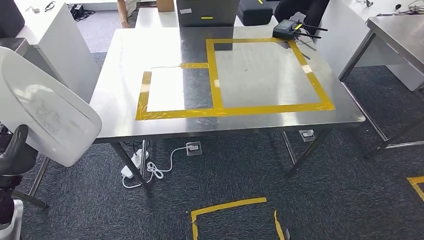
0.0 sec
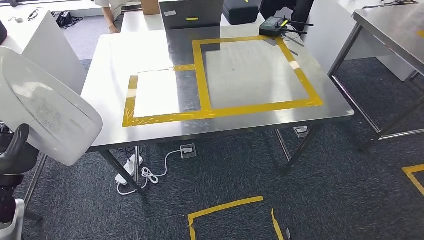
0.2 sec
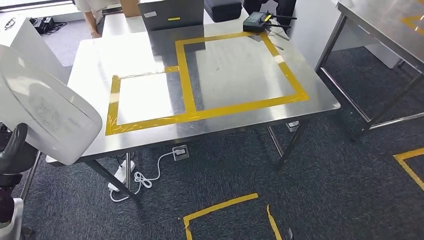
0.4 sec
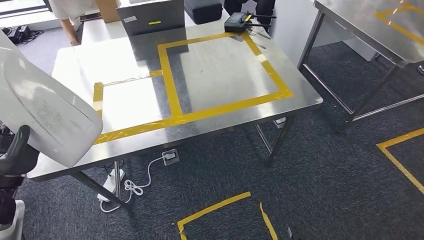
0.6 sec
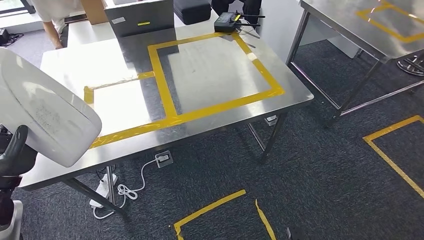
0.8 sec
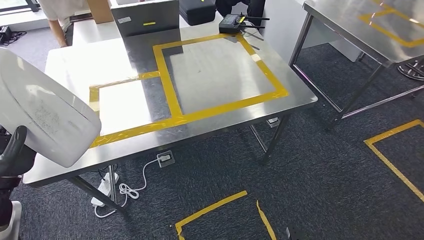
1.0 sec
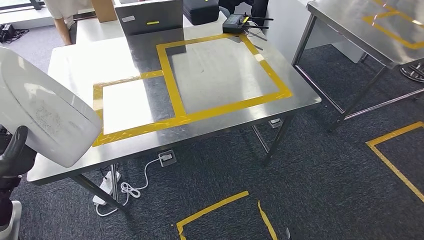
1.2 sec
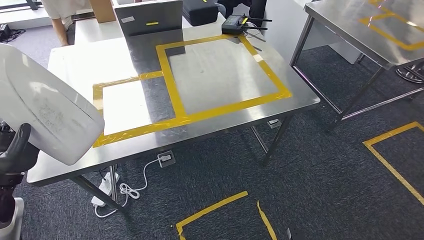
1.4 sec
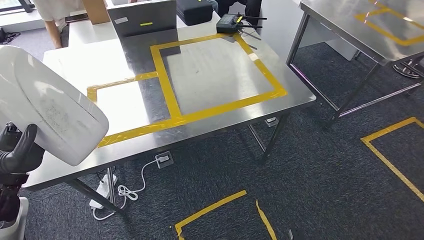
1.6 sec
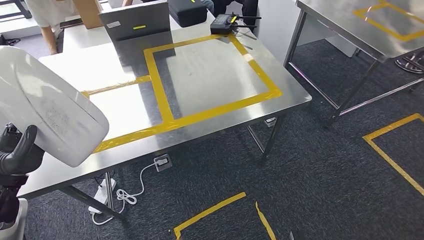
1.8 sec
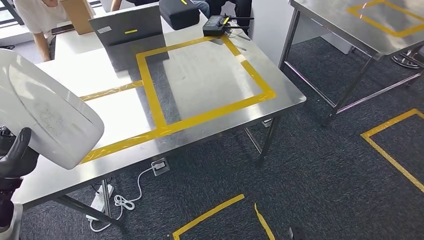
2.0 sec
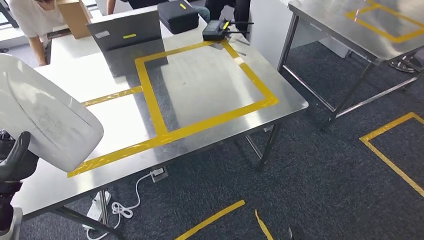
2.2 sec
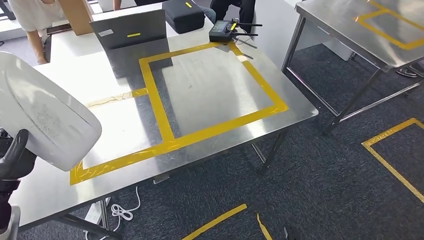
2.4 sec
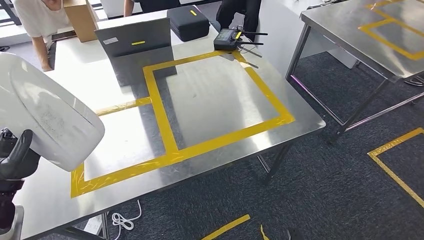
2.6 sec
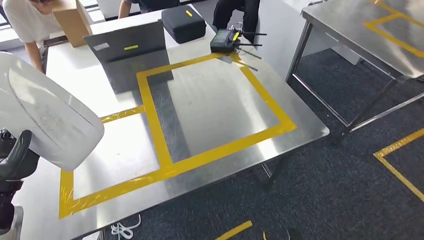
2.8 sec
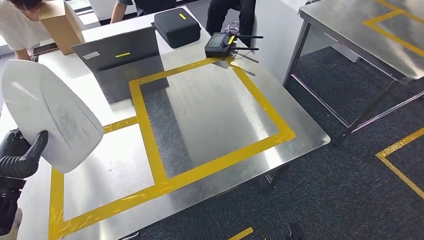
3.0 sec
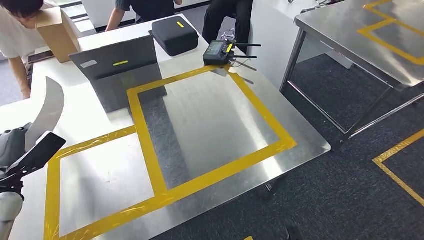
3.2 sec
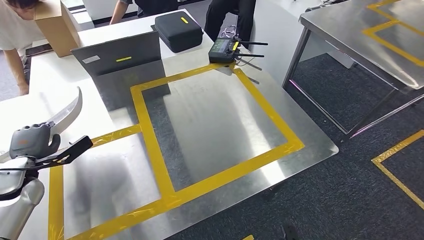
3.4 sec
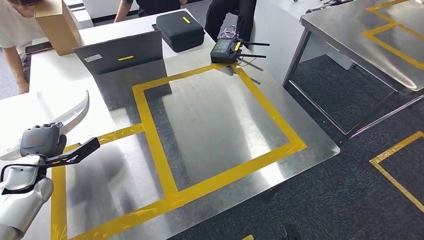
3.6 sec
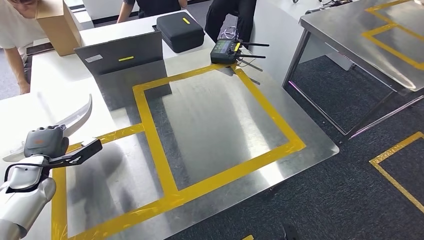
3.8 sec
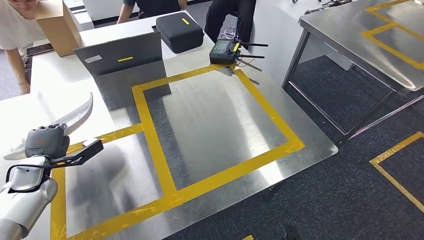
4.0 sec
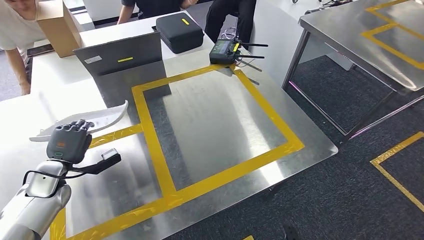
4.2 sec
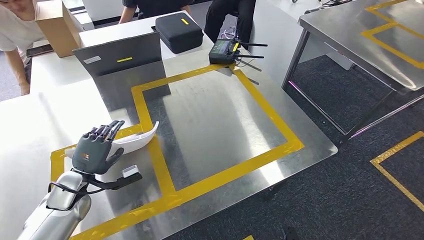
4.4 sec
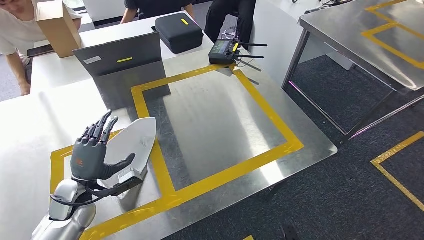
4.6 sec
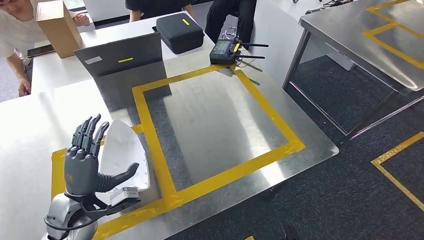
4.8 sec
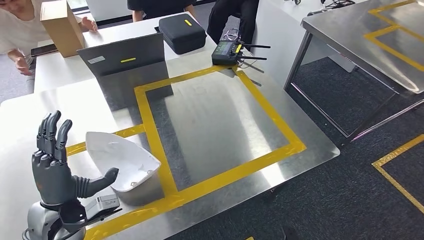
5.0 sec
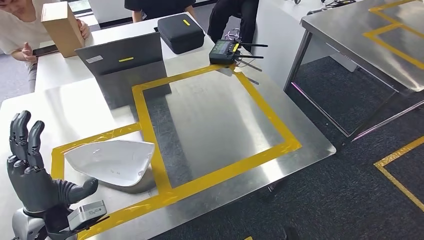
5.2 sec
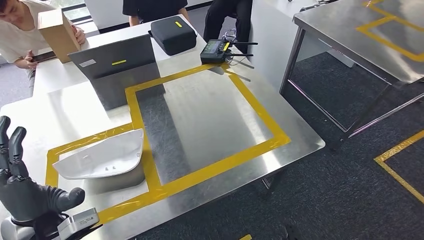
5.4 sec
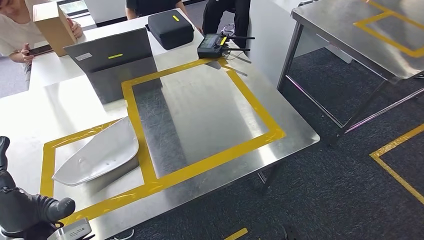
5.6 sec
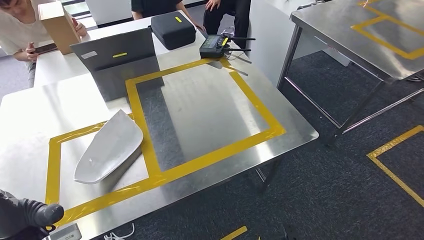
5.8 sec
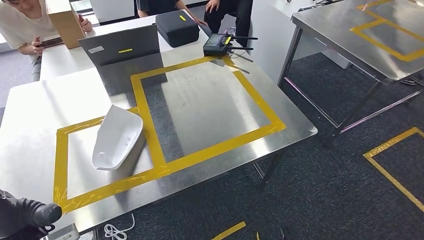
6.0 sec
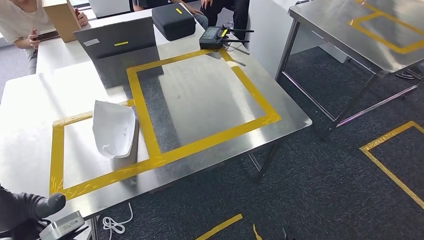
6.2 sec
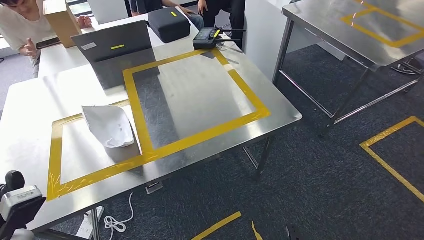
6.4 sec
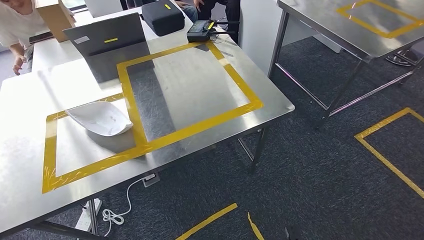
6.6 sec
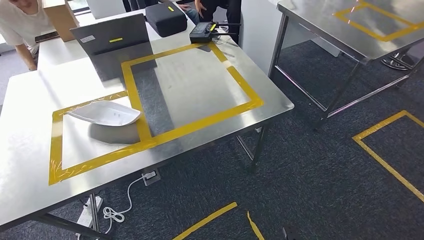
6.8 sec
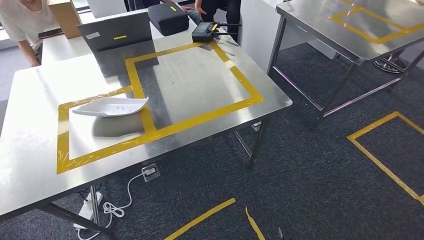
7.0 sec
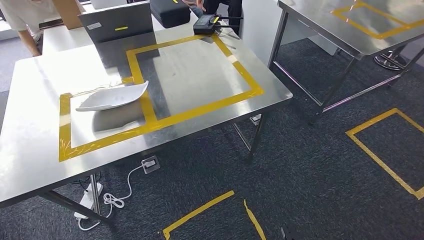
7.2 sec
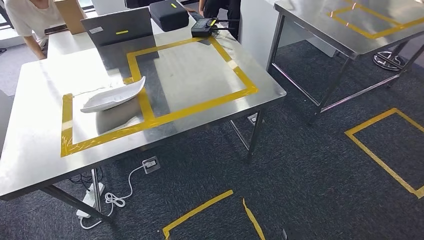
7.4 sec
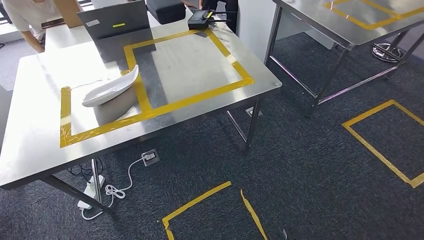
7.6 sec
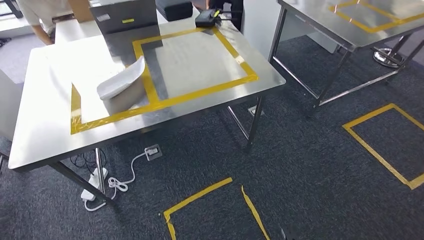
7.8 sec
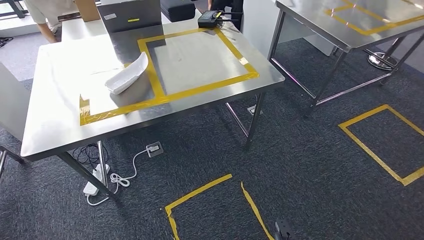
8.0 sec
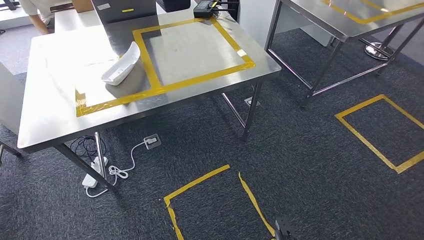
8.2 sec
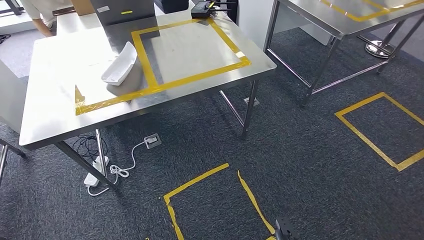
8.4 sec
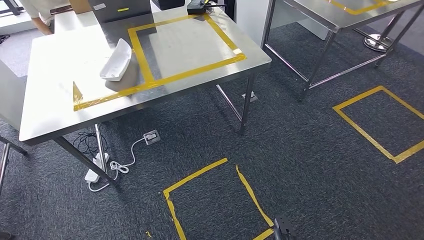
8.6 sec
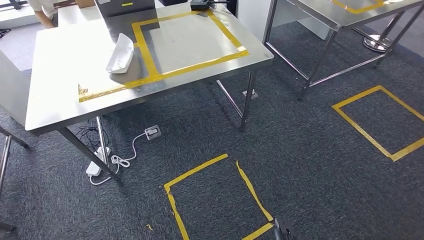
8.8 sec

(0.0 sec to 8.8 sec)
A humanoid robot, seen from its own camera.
Step, 0.0 sec - 5.8 sec: Insert the small component into the corresponding slot on the workbench.
Step, 6.4 sec - 8.8 sec: Return to the initial position at the workbench.

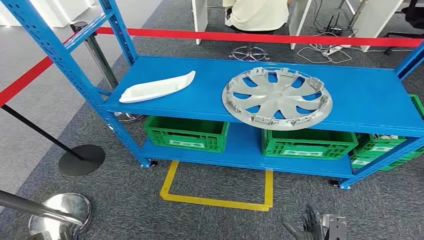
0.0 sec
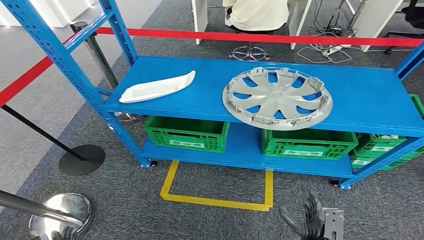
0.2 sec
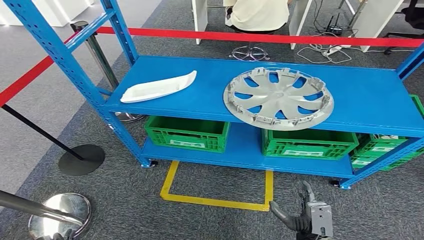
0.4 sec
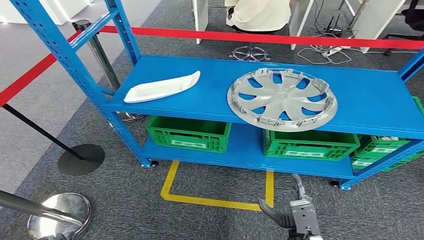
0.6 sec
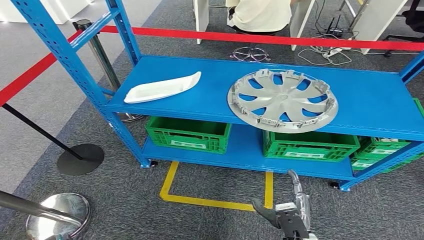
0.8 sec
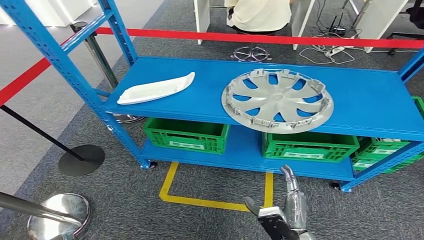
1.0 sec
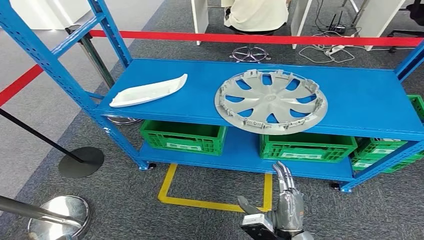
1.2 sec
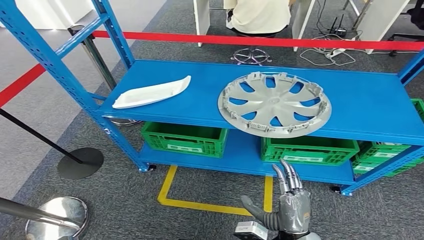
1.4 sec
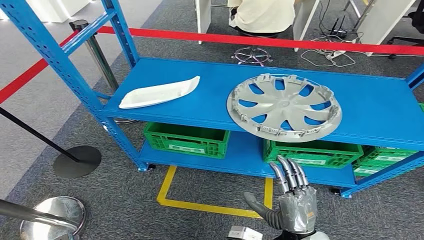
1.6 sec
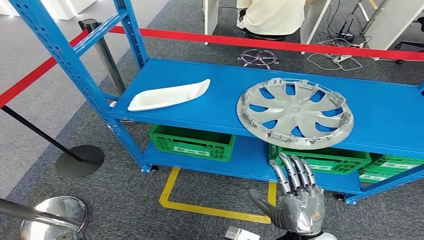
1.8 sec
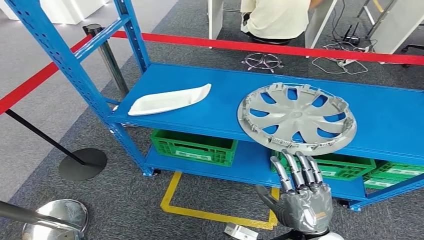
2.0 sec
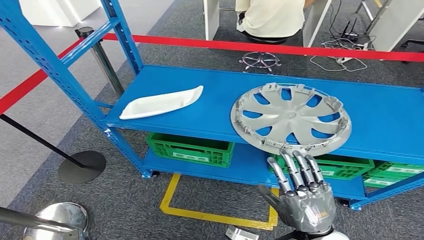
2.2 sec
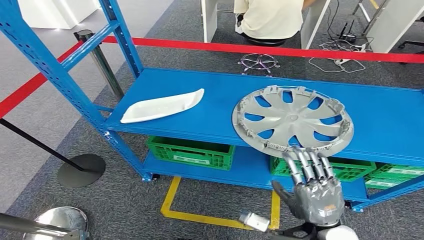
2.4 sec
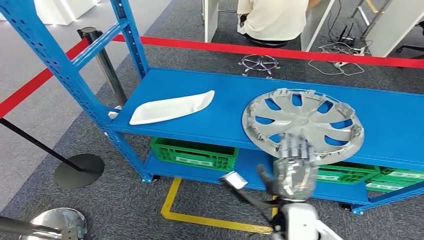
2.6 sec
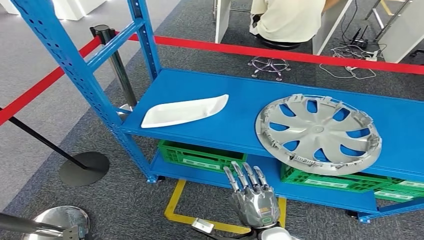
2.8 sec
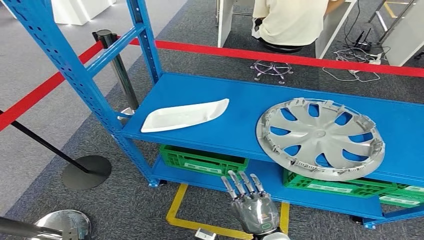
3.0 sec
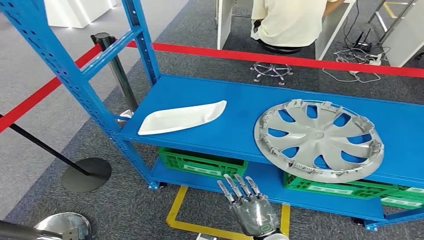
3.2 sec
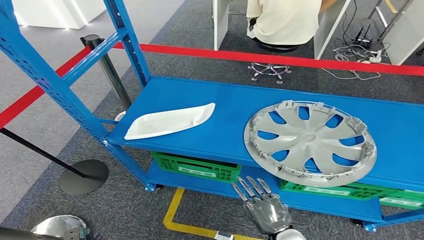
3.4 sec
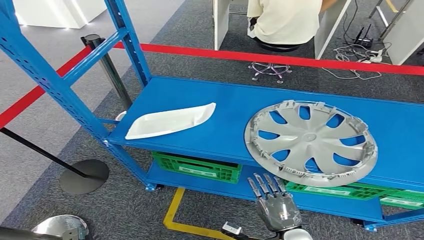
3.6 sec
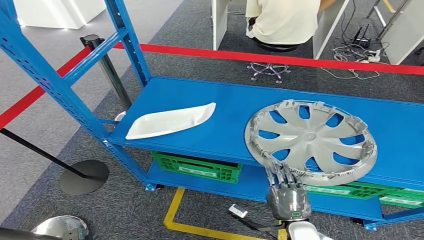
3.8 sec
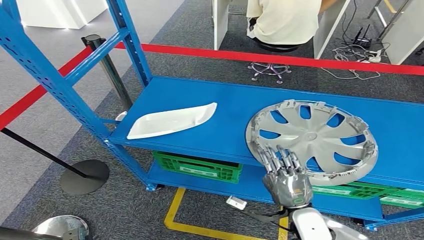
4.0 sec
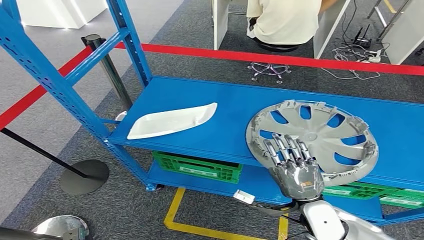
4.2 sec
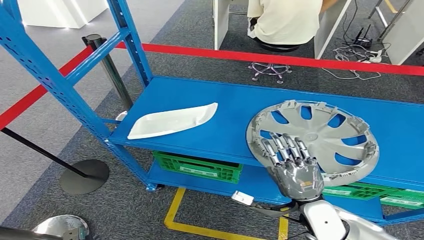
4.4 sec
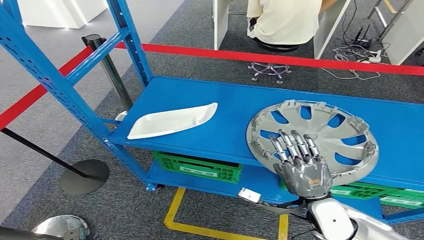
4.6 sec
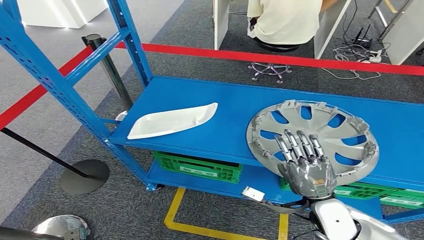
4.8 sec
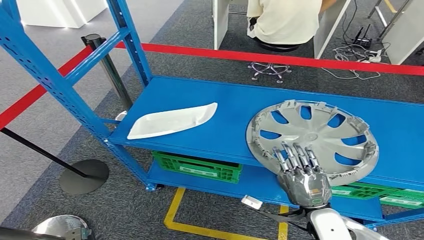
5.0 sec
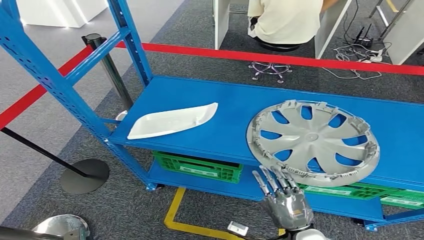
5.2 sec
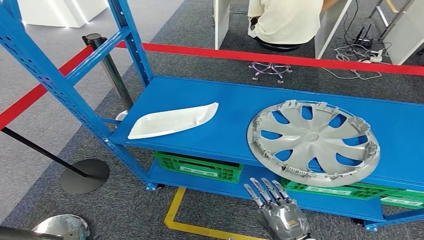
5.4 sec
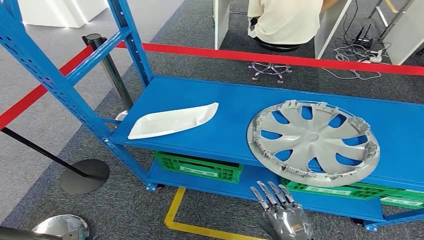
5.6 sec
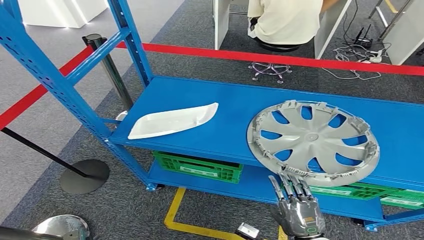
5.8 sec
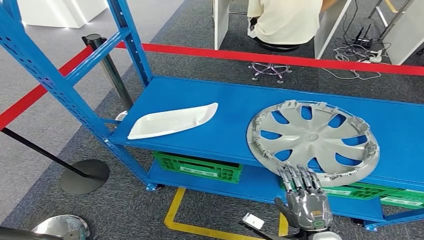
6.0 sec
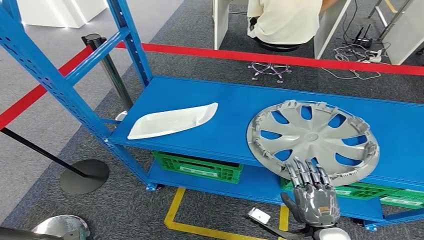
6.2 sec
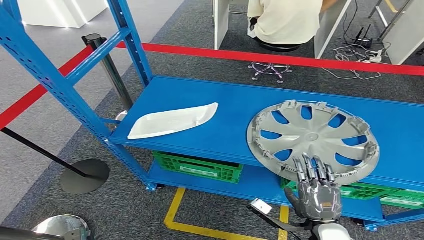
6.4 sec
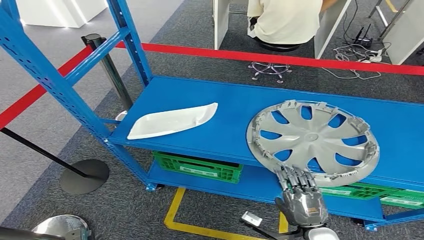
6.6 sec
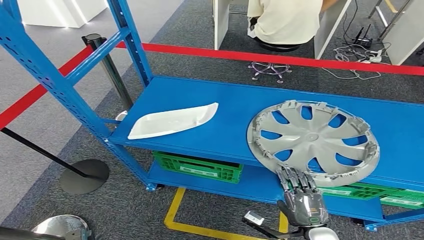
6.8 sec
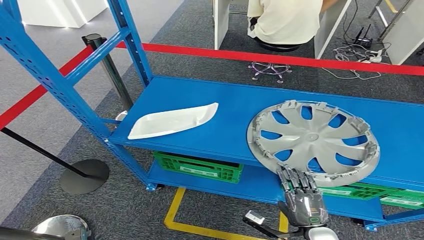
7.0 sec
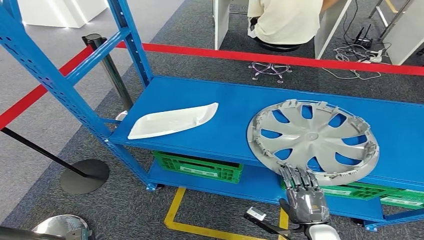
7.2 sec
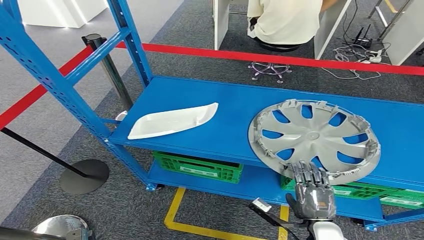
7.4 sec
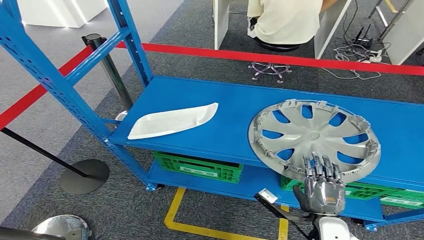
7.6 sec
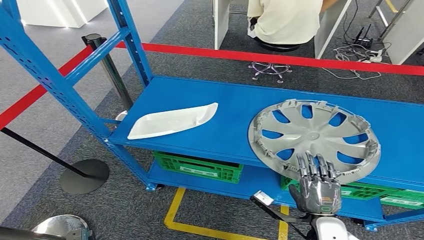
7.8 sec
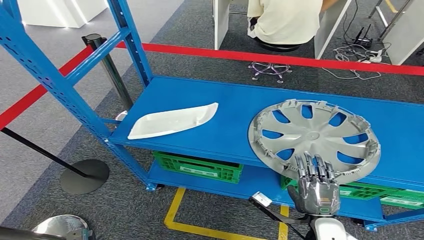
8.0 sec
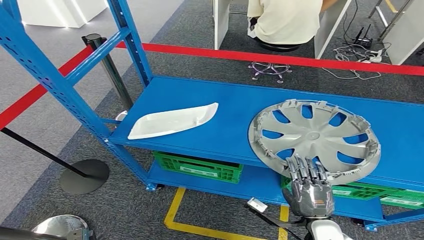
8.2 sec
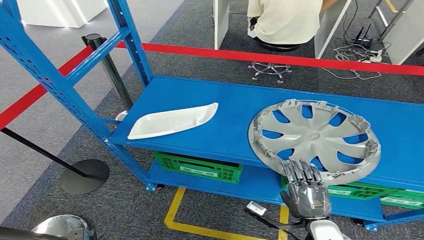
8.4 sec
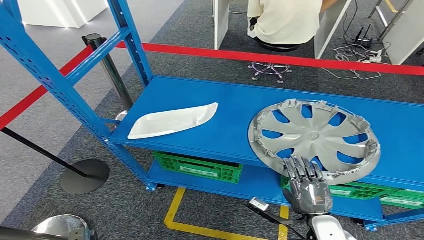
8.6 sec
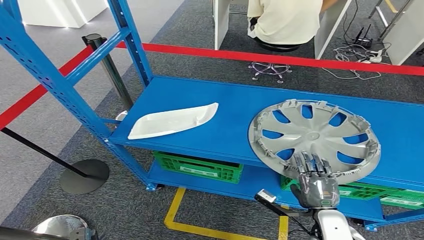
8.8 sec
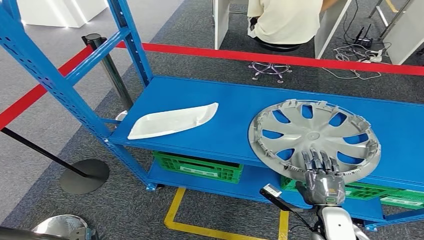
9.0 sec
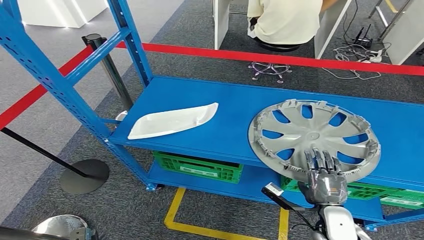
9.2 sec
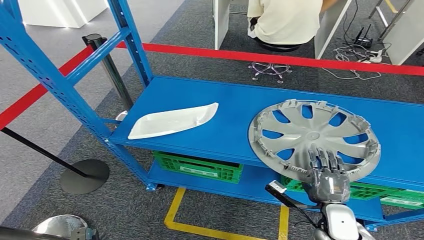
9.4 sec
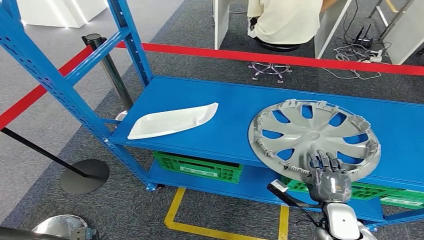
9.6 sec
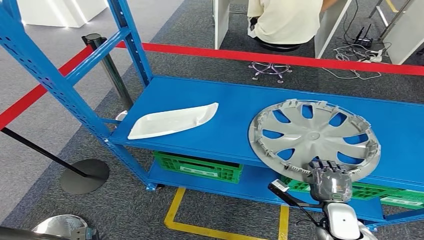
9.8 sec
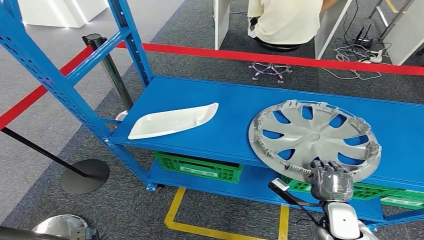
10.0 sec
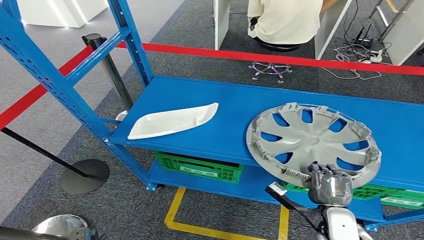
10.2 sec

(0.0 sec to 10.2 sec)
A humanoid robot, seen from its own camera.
4.4 sec - 5.8 sec: The right hand travels backward and downward by approximately 10 cm.
5.8 sec - 7.2 sec: The hands stay close to where they were, moving slightly.
7.2 sec - 8.8 sec: The hands make only small movements.
8.8 sec - 10.2 sec: The hands make only small movements.
